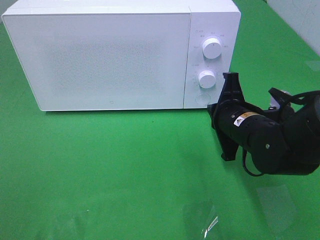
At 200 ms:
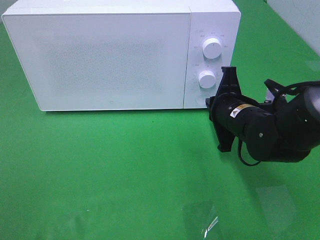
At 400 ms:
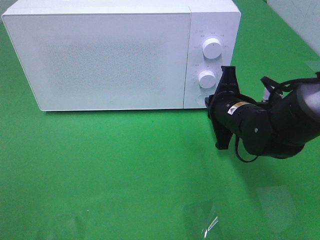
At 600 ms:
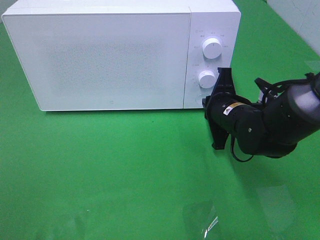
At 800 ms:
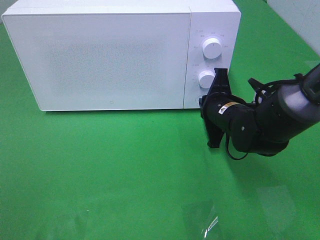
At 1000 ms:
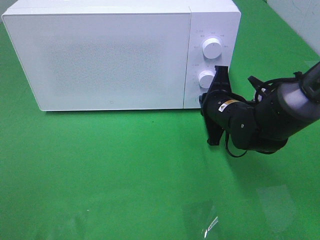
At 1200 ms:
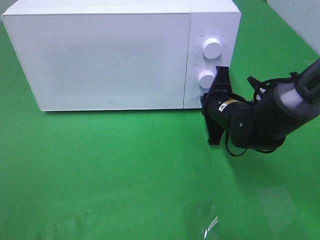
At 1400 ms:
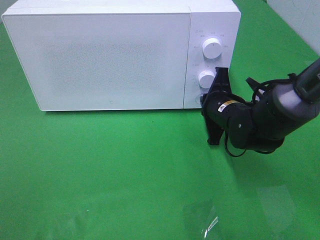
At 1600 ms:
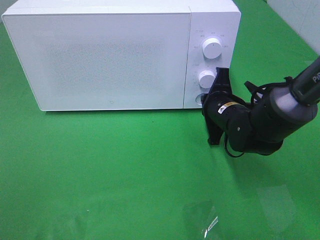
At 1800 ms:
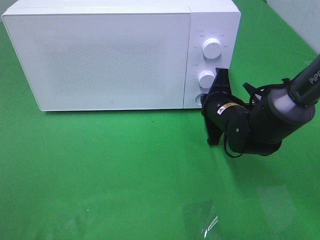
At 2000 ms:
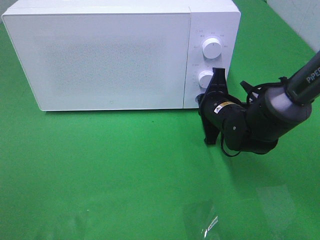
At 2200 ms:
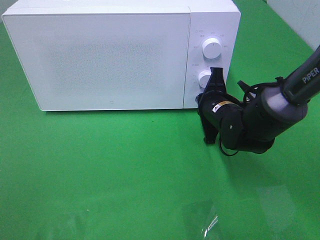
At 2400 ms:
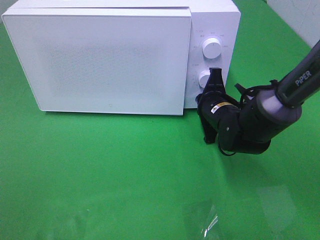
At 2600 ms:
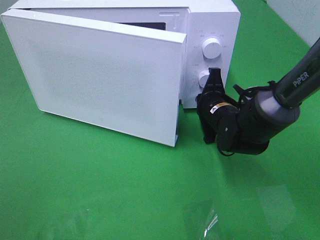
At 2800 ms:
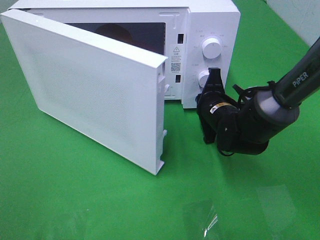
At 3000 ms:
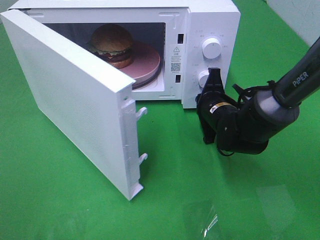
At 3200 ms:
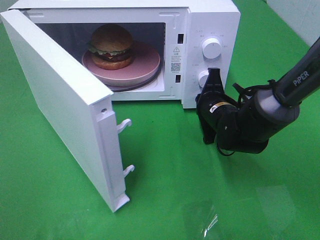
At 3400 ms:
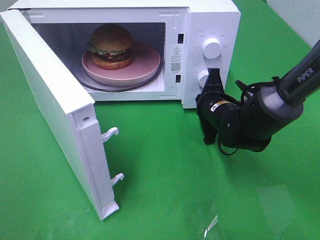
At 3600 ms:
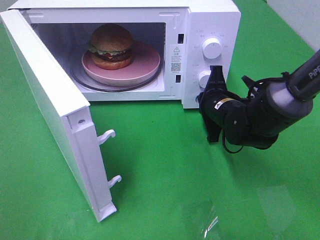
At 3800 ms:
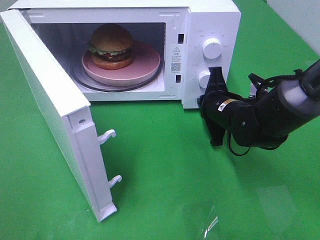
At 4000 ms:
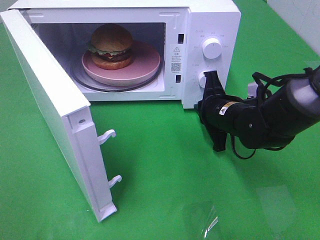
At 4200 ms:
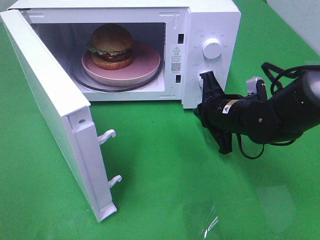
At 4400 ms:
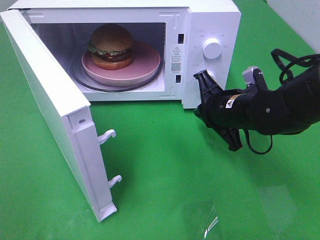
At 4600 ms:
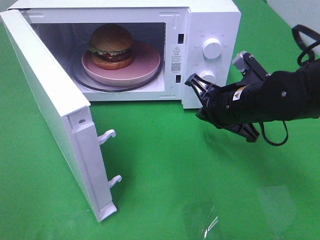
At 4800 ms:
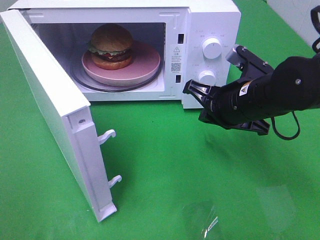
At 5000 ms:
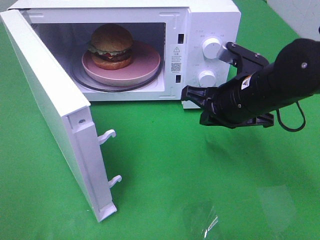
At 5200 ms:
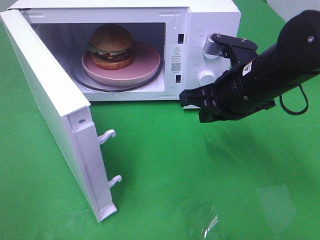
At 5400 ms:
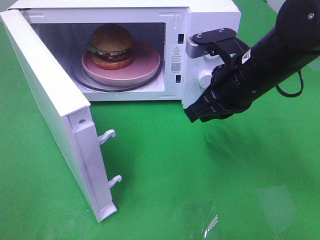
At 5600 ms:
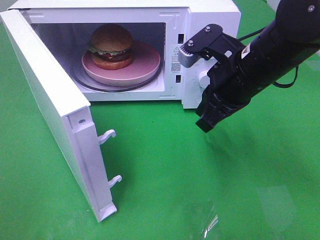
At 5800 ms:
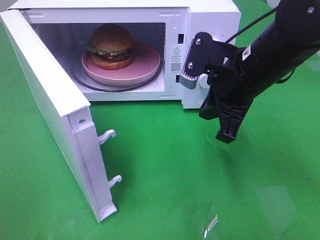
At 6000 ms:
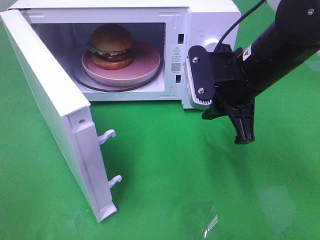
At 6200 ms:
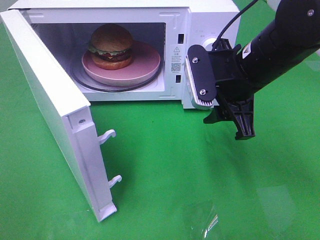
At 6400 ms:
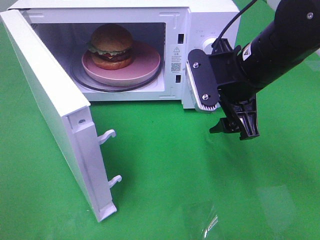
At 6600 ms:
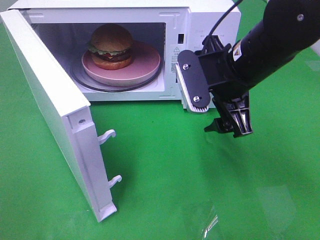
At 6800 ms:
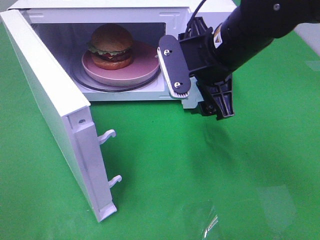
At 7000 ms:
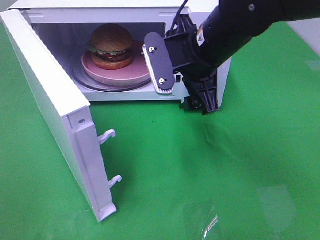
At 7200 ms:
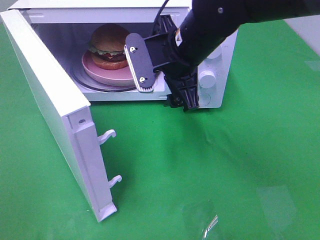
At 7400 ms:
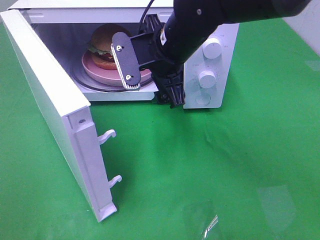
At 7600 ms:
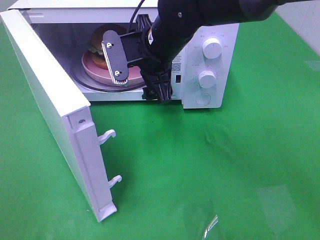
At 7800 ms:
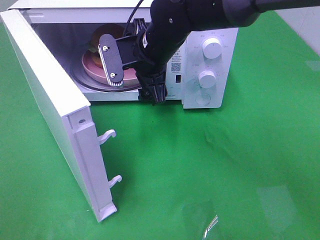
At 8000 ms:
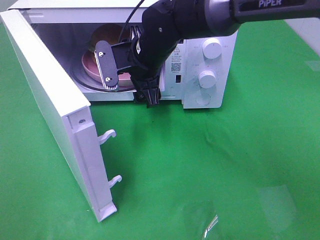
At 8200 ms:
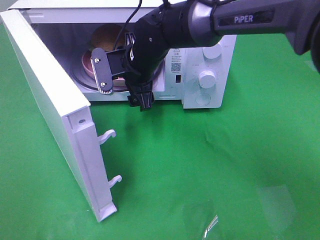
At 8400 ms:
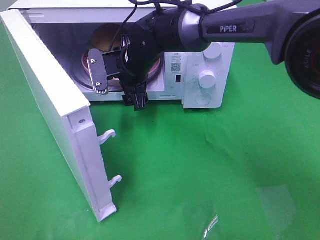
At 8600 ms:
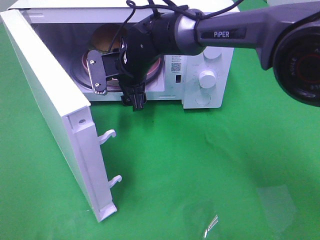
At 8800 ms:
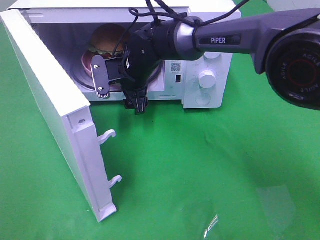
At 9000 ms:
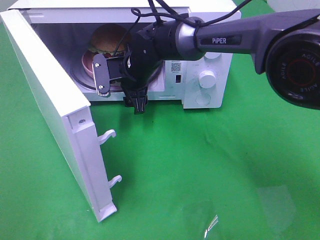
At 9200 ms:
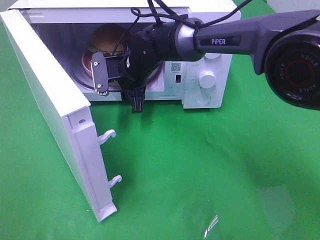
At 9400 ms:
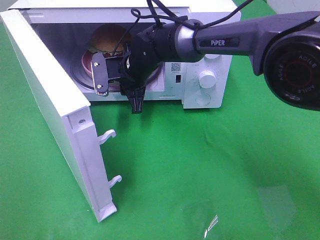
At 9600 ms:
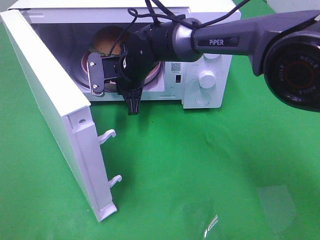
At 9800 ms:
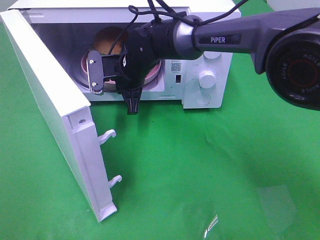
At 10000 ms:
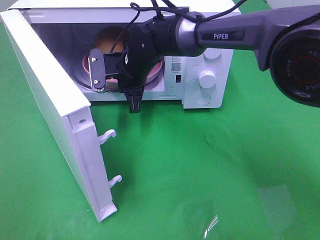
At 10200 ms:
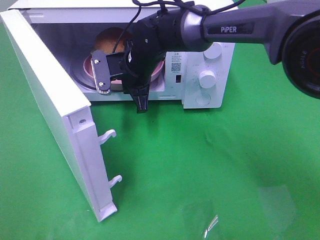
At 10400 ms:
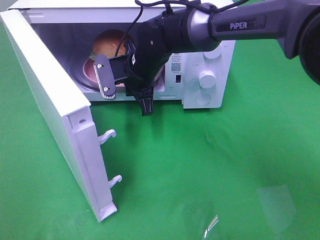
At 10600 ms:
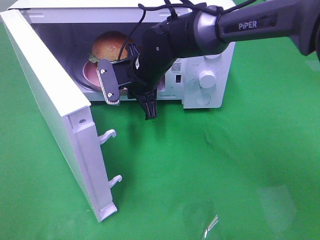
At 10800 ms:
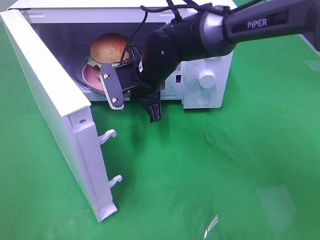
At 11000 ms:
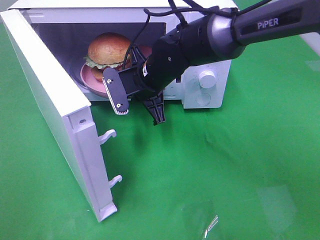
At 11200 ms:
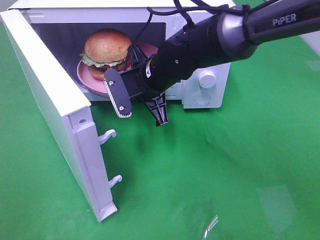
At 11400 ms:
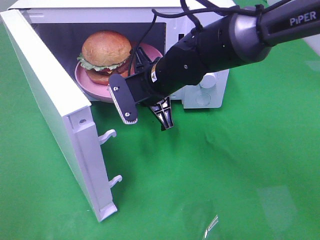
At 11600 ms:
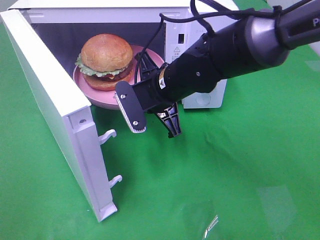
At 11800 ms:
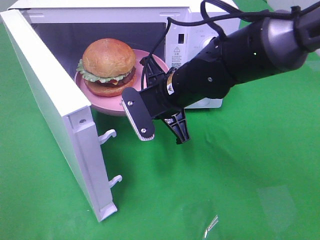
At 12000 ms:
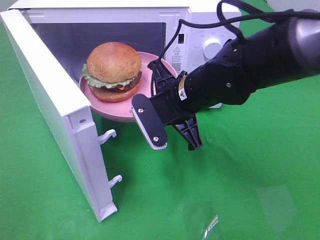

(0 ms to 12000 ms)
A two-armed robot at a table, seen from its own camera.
Task of the whole recording: Heat the burger.
Step, 0 ms - 4000 ms: Right hand: press the switch.
Step, 4200 ms - 9600 ms: Right hand: grab the plate with the hamburger.
0 ms - 1600 ms: The right gripper heads forward, covering some 5 cm.
3000 ms - 4400 ms: The right gripper travels upward by some 5 cm.
4400 ms - 6000 ms: The right gripper is displaced upward by roughly 10 cm.
6000 ms - 7600 ms: The right gripper heads to the left and forward, covering some 15 cm, and opens up.
7600 ms - 9000 ms: The right gripper moves downward and forward, some 10 cm.
9000 ms - 10400 ms: The right gripper closes up.
10400 ms - 12000 ms: The right gripper heads backward and to the right, covering about 15 cm.

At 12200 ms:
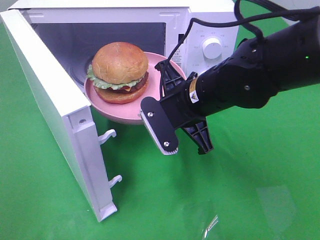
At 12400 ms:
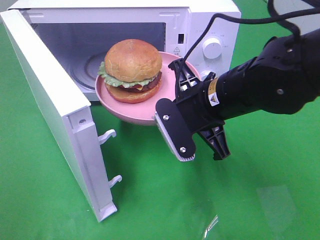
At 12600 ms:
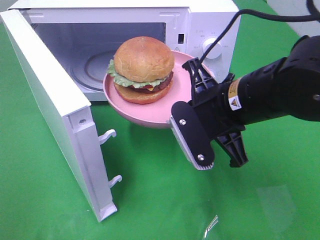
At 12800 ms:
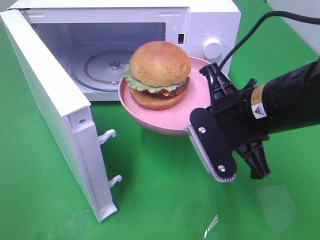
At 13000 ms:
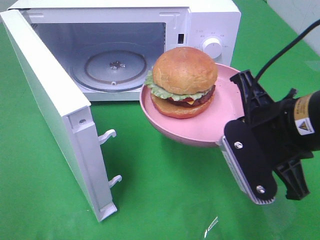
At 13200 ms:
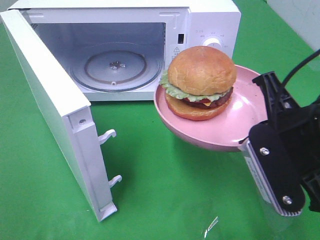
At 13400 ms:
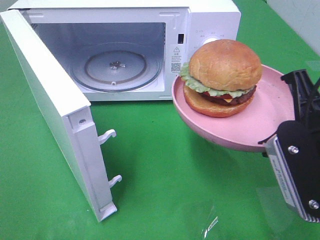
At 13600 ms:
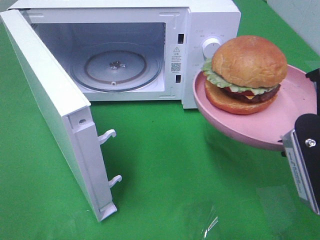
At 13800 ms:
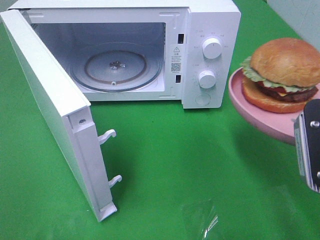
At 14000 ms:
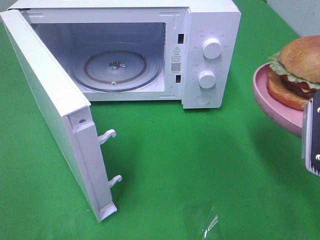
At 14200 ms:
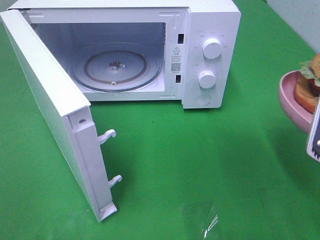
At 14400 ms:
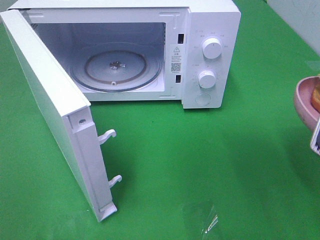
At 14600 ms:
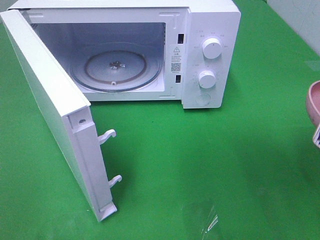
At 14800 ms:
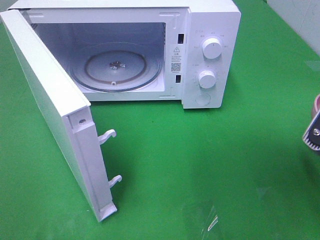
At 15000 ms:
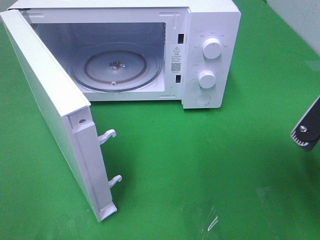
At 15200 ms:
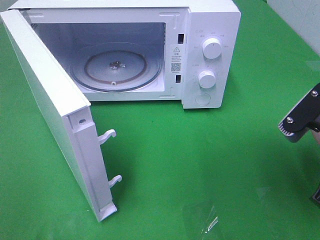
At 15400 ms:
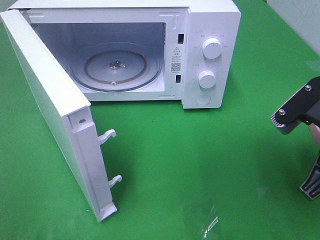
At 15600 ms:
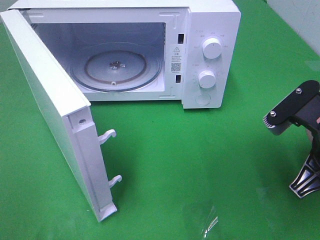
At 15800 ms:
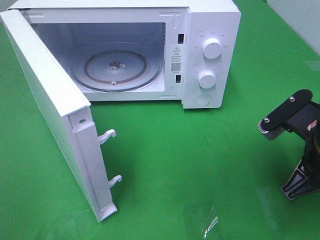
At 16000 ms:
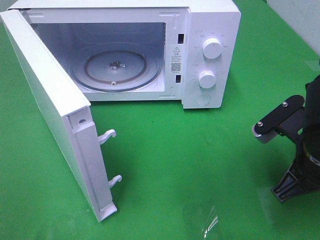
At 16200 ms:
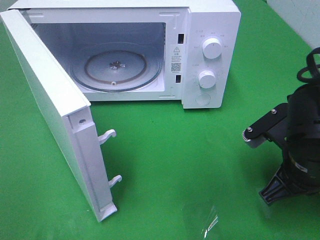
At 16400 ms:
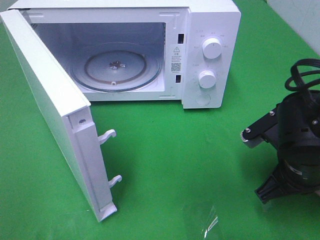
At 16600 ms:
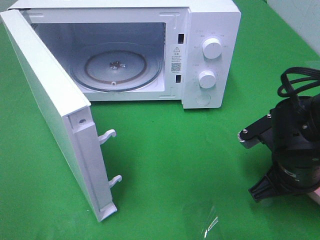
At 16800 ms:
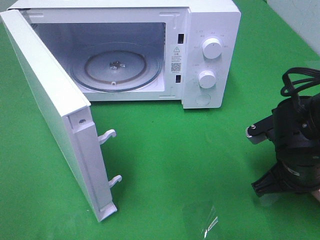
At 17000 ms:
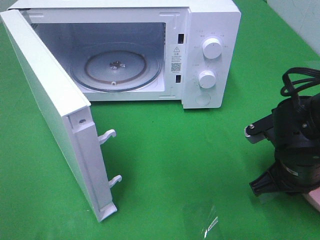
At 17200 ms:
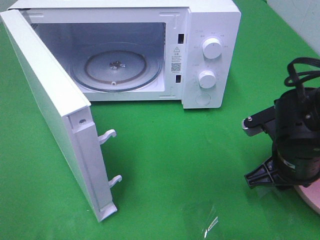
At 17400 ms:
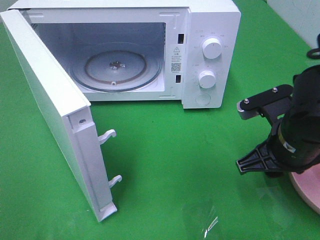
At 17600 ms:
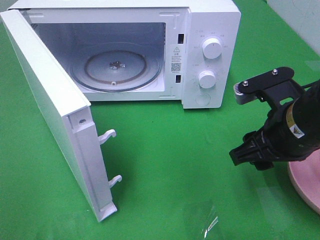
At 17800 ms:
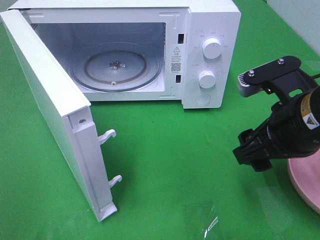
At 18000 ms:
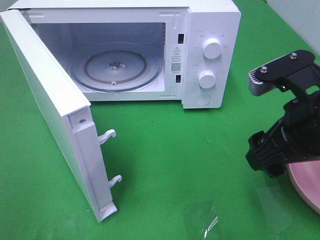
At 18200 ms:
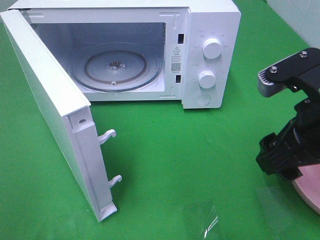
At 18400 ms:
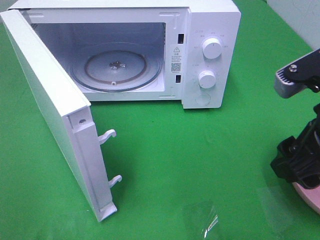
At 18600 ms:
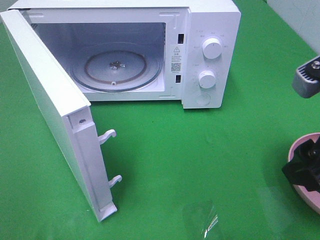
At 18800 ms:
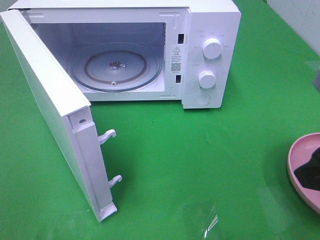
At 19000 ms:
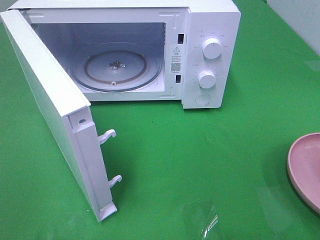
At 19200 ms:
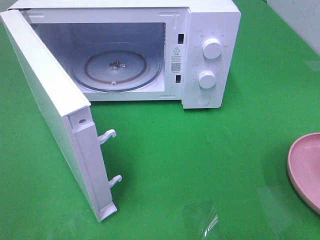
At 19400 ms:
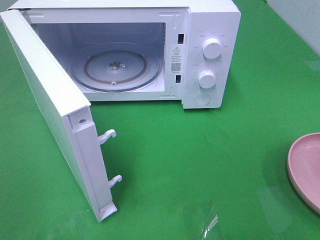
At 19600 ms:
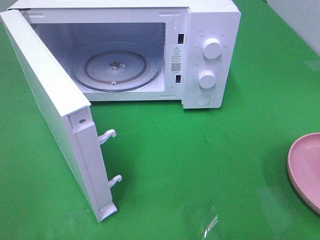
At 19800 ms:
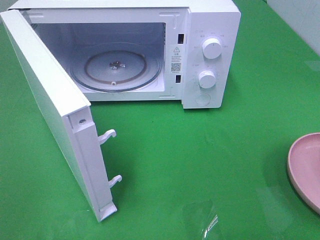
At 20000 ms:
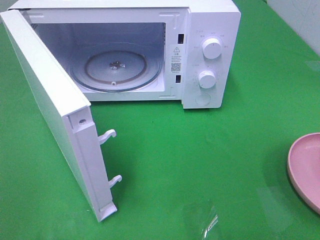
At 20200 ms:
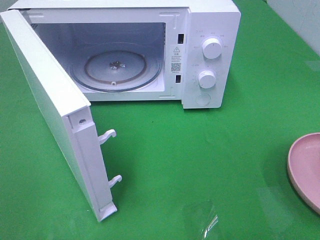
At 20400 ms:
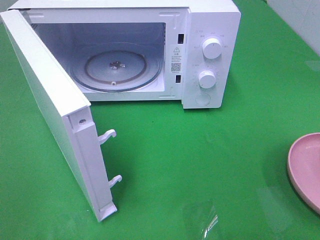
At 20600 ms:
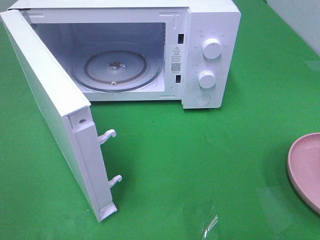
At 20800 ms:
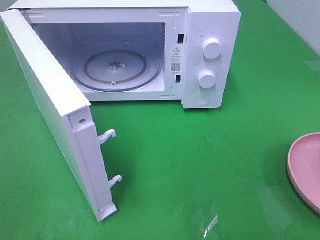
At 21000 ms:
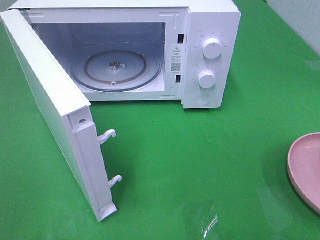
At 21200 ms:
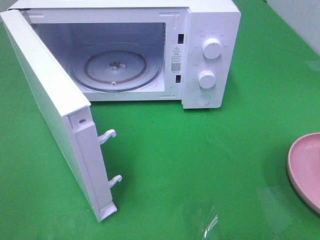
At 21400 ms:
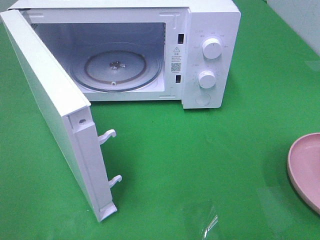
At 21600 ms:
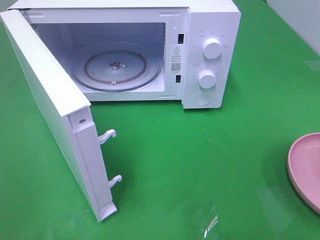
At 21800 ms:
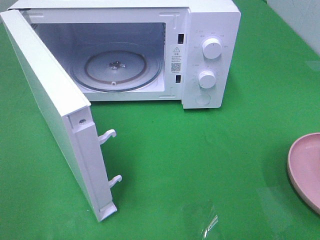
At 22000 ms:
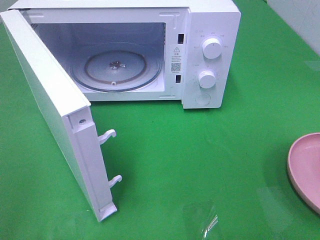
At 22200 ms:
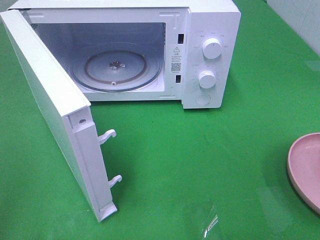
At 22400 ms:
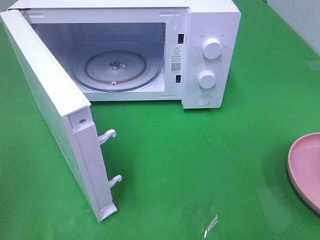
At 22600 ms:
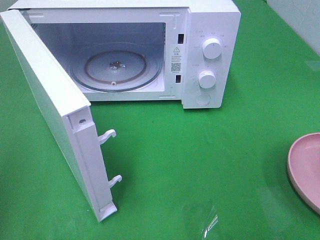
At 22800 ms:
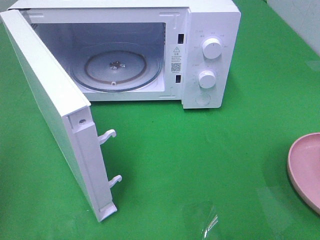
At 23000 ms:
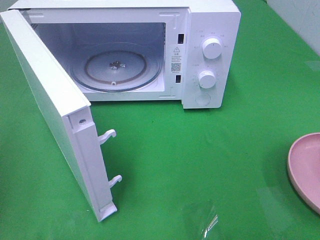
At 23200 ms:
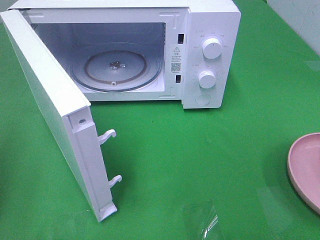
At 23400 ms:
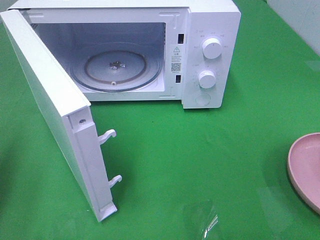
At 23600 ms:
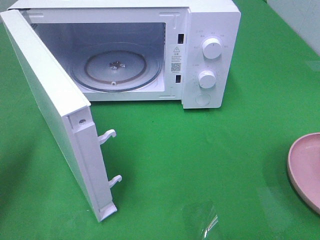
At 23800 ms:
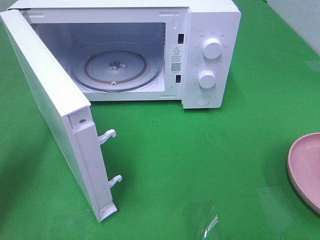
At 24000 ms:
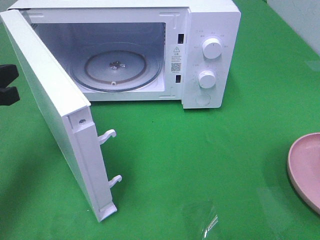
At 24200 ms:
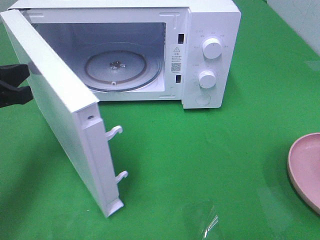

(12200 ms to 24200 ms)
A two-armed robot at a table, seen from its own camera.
Task of the whole recording: Heat the burger.
Step, 12200 ms - 17200 ms: Right hand: place the plate on the table.
12200 ms - 13800 ms: The right gripper heads to the right, backward and upward, covering about 20 cm.
15200 ms - 16600 ms: The right gripper heads downward, covering about 10 cm.
16600 ms - 18200 ms: The right gripper goes about 15 cm upward, and opens its fingers.
18200 ms - 19800 ms: The right gripper goes roughly 20 cm backward and to the right.
19800 ms - 21200 ms: Neither gripper changes place.
22600 ms - 24200 ms: The left gripper heads forward, downward and to the right, covering roughly 20 cm.
